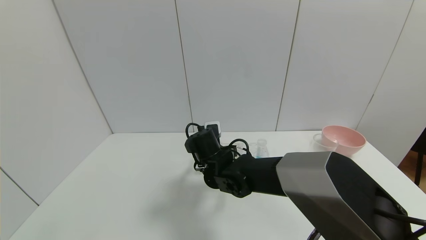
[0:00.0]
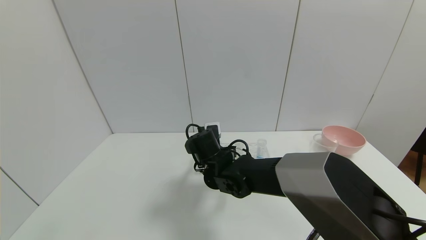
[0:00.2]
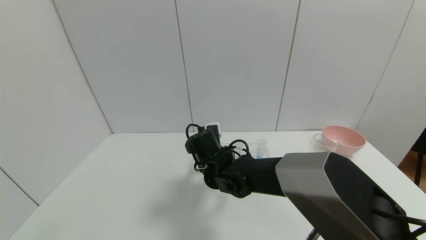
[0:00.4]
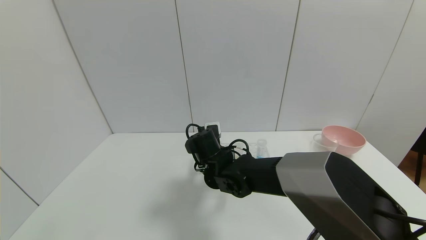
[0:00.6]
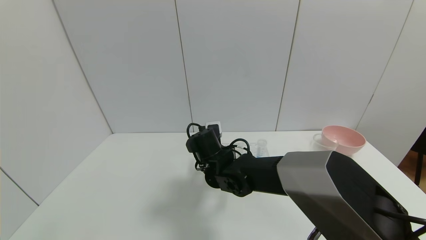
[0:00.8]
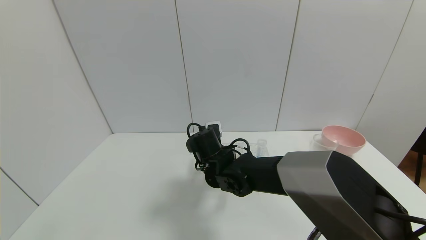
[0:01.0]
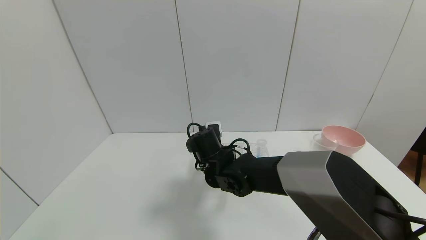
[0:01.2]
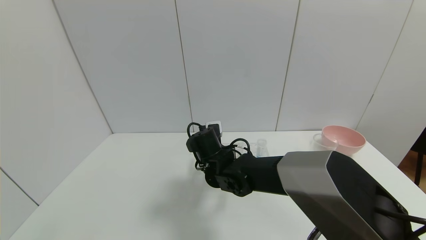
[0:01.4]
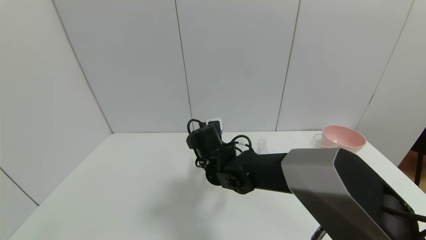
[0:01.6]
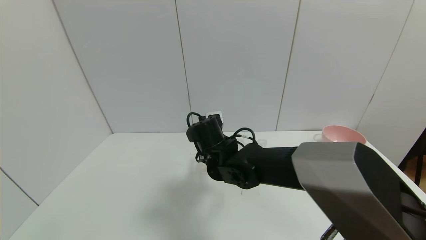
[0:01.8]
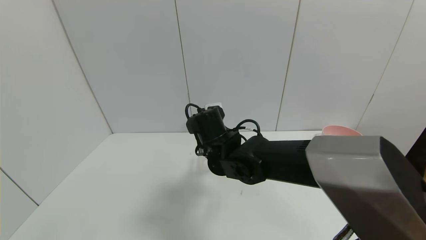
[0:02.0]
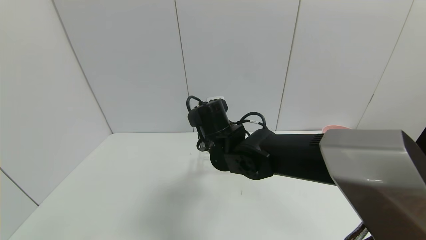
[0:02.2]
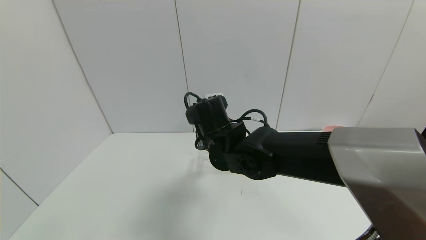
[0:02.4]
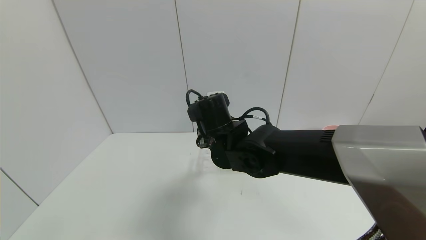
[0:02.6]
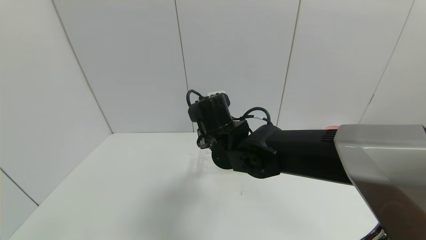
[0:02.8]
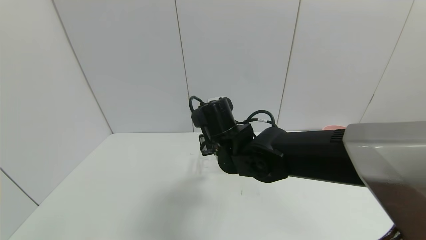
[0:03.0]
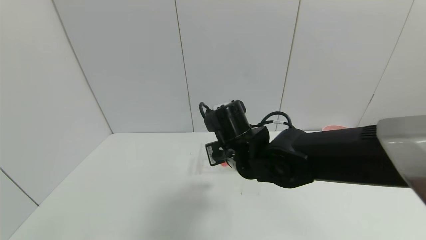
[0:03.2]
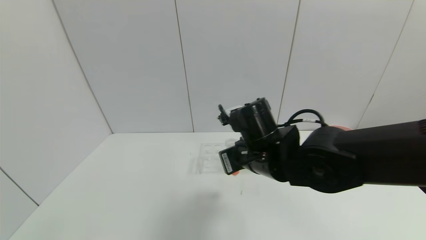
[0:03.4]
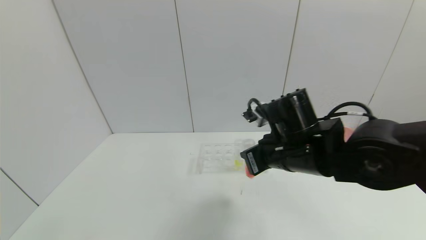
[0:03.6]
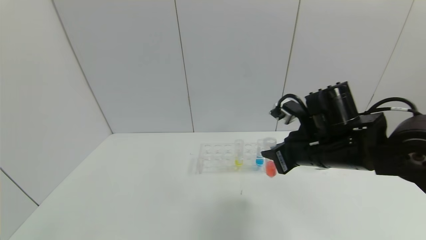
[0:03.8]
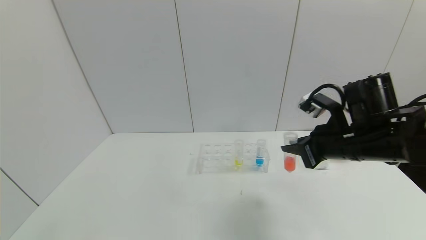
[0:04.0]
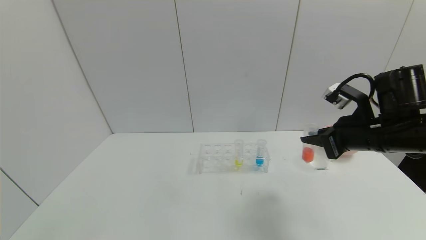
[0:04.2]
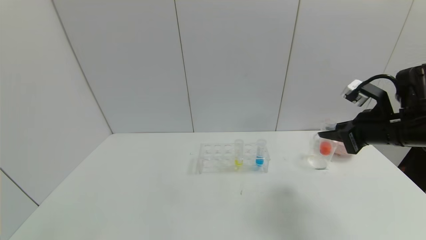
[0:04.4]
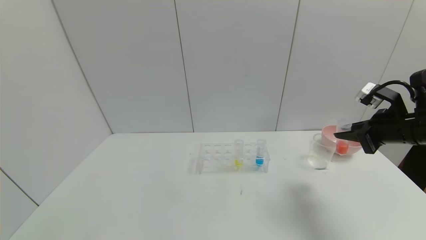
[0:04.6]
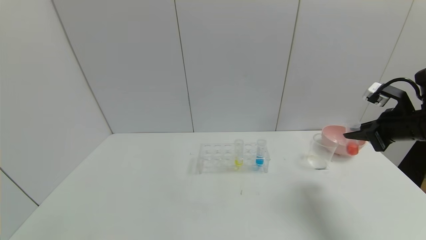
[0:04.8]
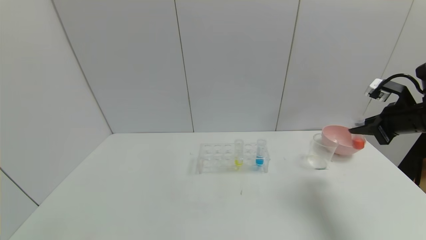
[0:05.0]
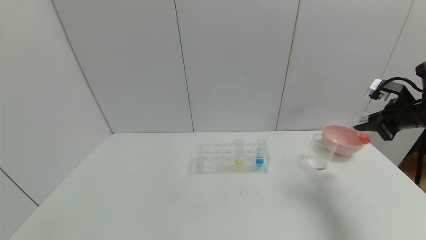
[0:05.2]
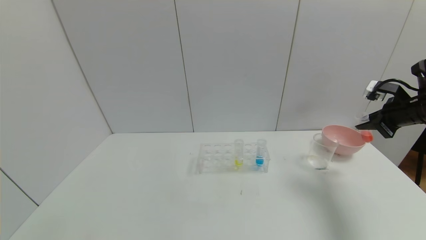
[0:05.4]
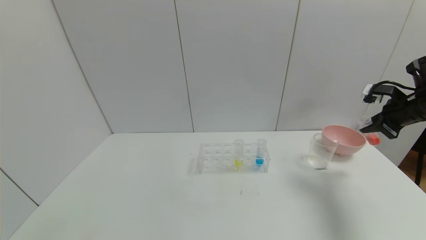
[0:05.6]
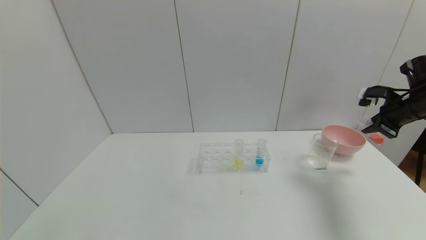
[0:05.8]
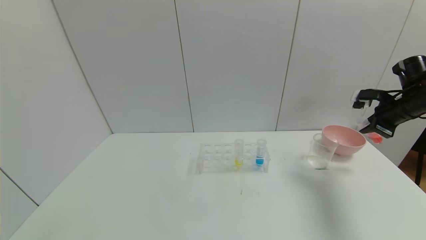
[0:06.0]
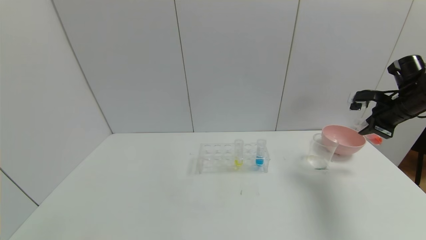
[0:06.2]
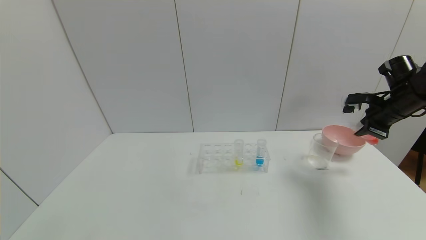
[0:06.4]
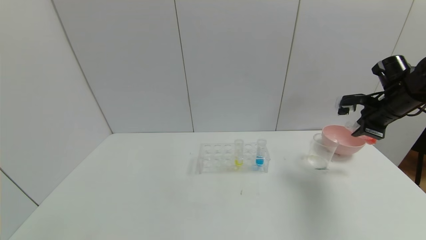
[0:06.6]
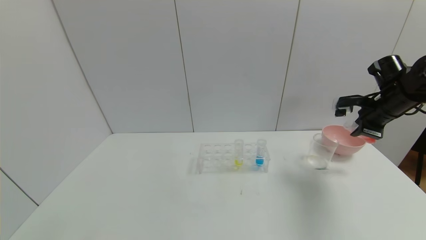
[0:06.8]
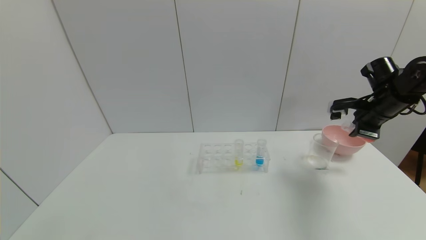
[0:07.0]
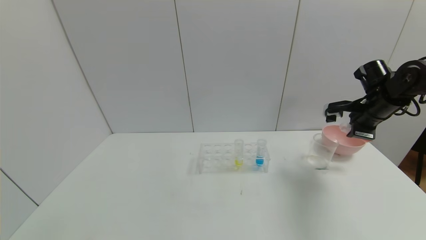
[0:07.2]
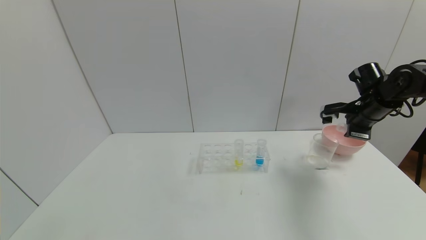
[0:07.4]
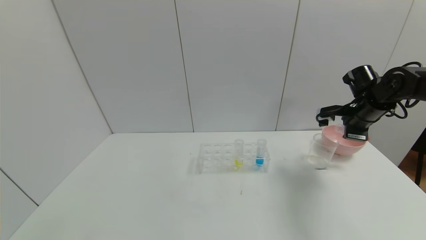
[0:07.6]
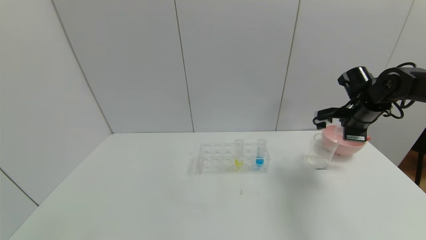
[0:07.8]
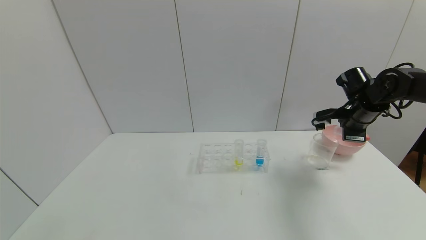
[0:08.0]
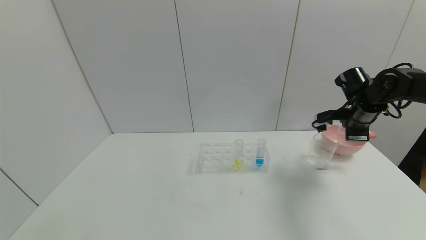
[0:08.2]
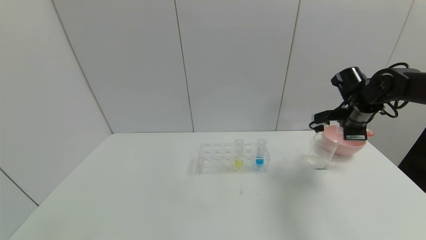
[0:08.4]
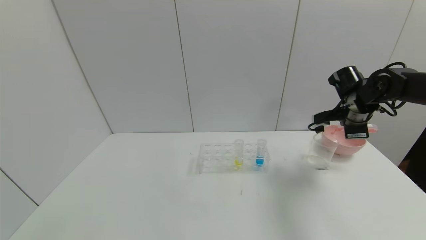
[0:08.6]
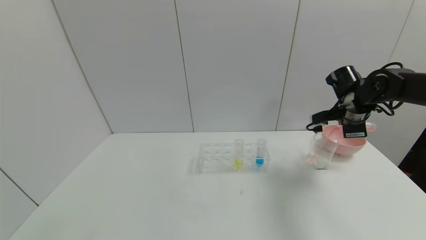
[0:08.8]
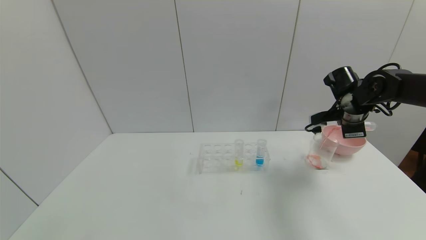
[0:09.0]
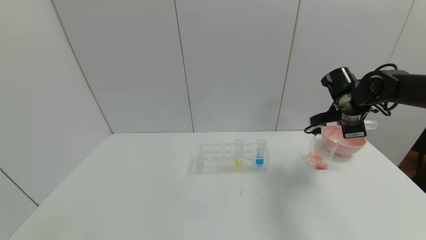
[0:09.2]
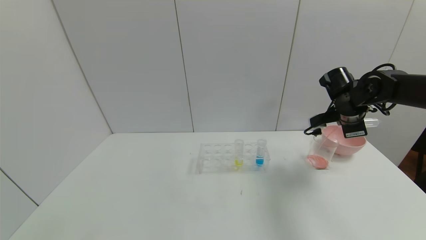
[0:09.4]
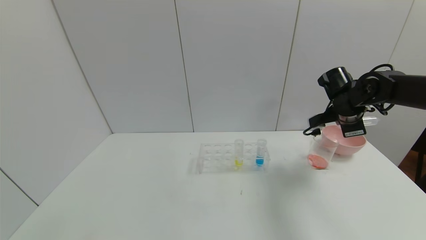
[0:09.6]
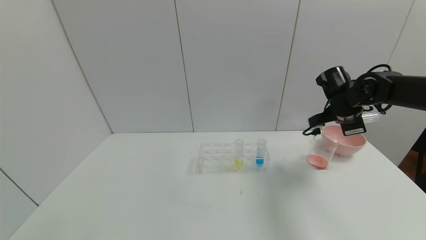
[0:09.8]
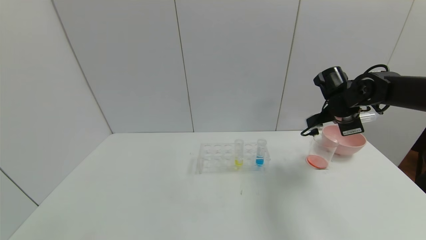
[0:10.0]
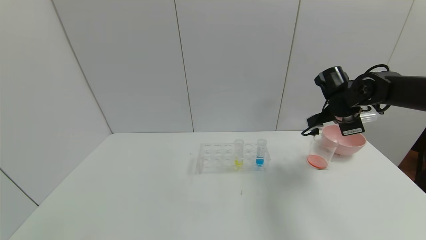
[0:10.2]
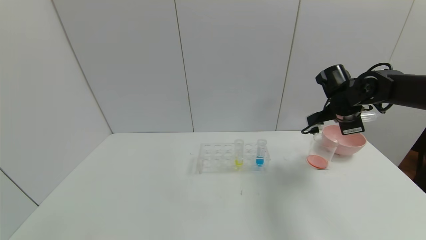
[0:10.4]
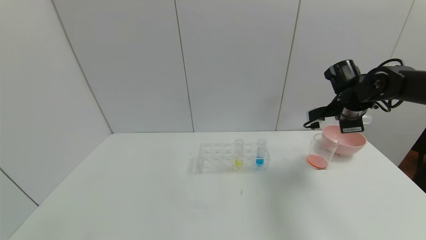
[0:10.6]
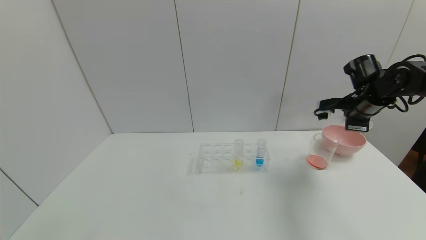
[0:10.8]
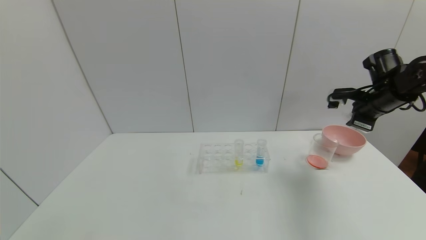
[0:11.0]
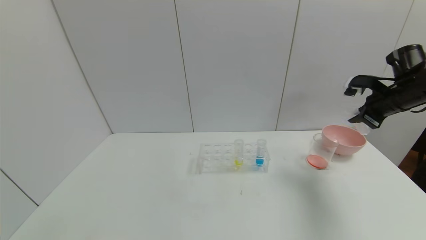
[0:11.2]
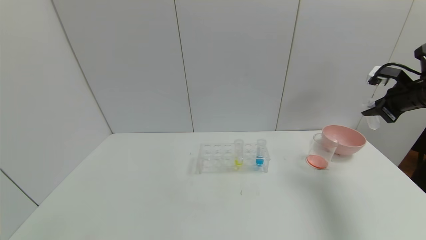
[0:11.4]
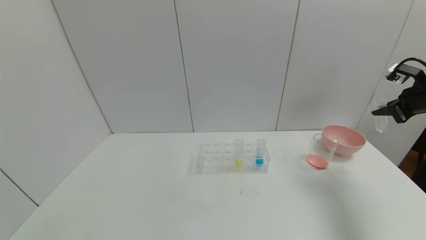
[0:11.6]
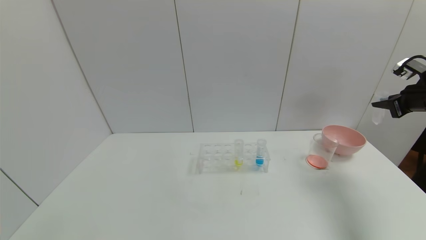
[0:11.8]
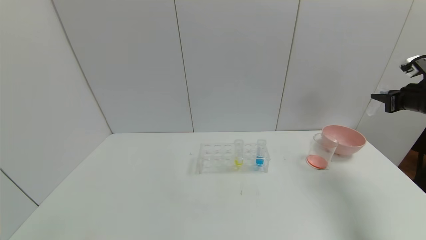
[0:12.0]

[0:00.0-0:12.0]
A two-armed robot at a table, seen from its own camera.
Task of the whole recording: pick up the test tube with yellow pigment and the test tube with red pigment by grippers and pour them into the beaker.
Step, 0:01.0 to 0:10.4: Pour the red reagent into the graduated cylinder with the right gripper.
0:00.0 to 0:01.6: The right gripper closes its fingers.
0:01.6 to 0:03.0: The right gripper is displaced upward by some 5 cm.
0:03.0 to 0:04.4: The right gripper heads to the right, covering approximately 30 cm.
0:04.4 to 0:06.0: The right gripper is displaced to the right and forward by about 15 cm.
0:06.0 to 0:07.6: The right gripper travels to the left by roughly 10 cm.
0:09.0 to 0:10.4: The grippers make only small movements.
0:10.4 to 0:12.0: The right gripper heads to the right, covering roughly 20 cm.

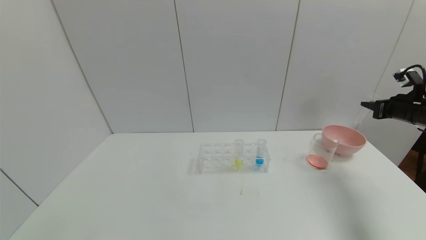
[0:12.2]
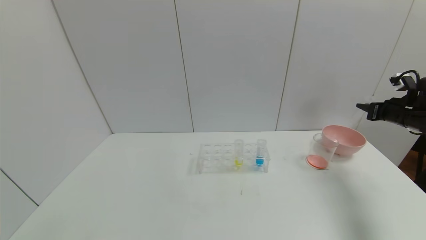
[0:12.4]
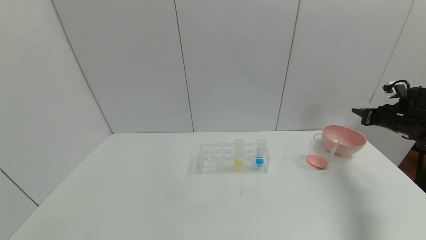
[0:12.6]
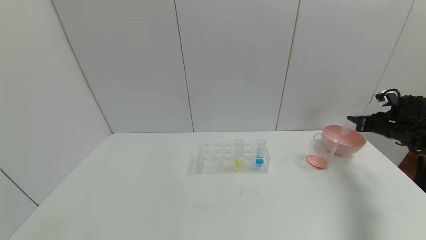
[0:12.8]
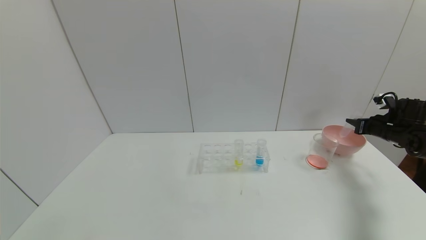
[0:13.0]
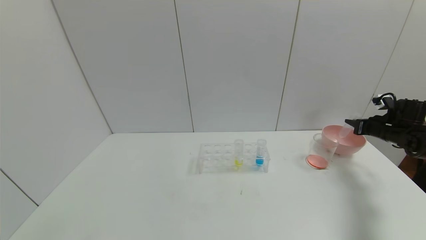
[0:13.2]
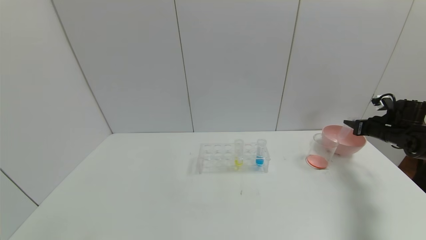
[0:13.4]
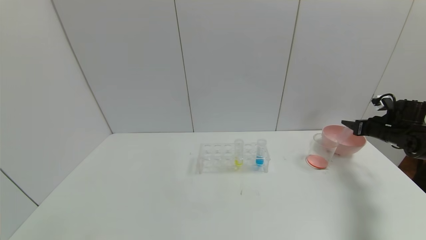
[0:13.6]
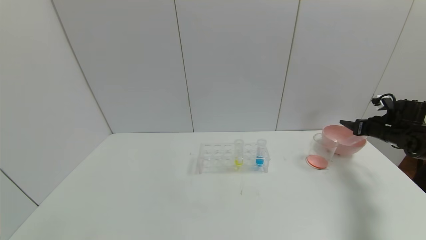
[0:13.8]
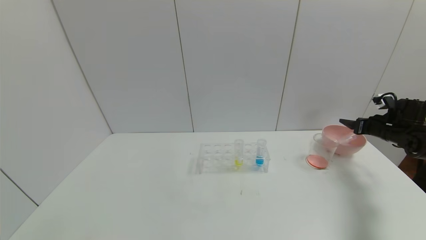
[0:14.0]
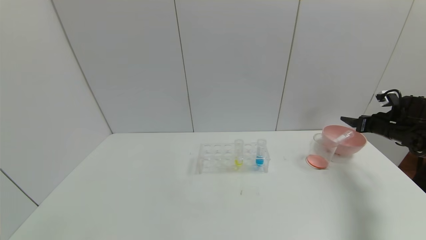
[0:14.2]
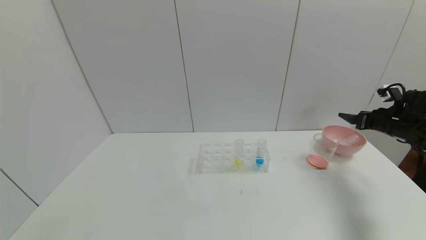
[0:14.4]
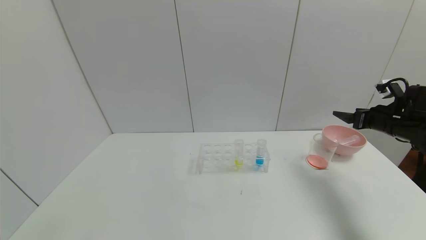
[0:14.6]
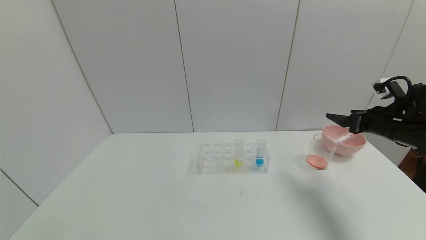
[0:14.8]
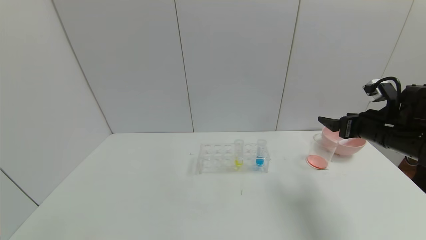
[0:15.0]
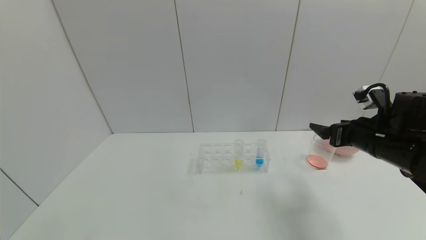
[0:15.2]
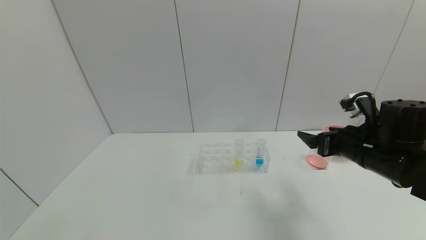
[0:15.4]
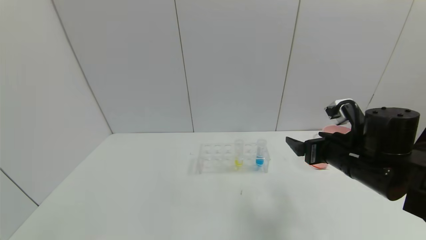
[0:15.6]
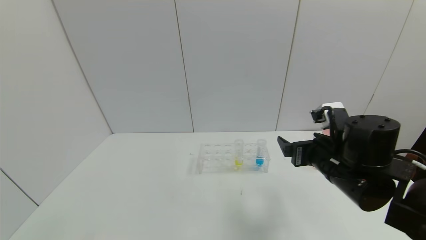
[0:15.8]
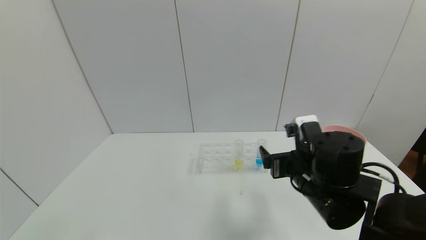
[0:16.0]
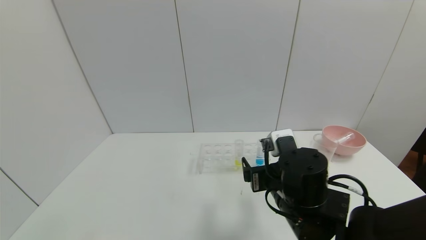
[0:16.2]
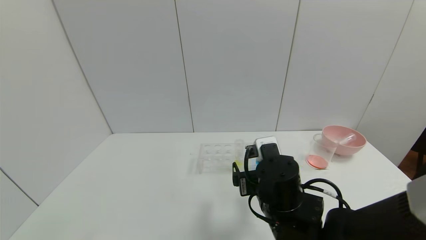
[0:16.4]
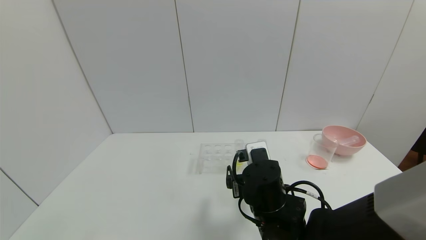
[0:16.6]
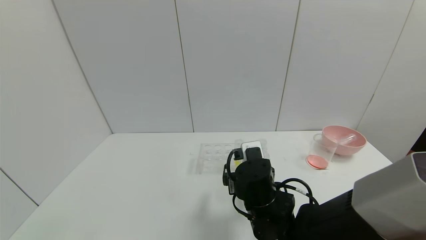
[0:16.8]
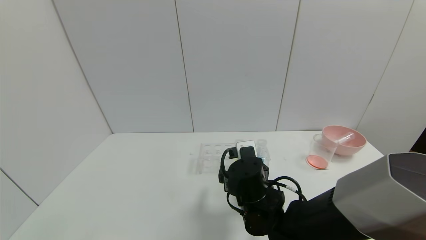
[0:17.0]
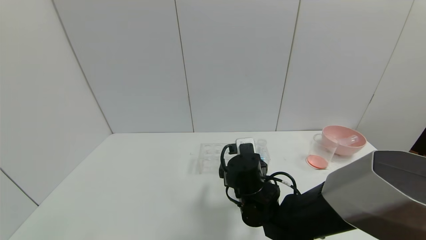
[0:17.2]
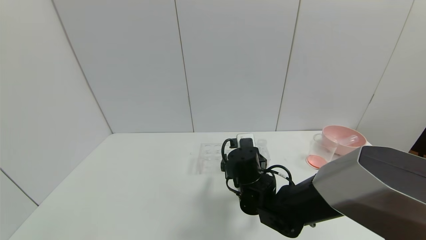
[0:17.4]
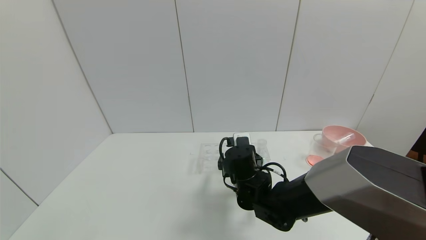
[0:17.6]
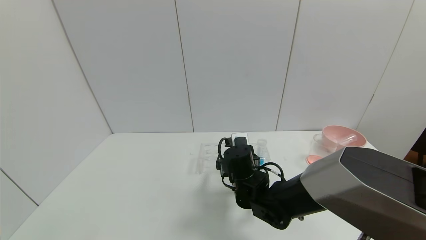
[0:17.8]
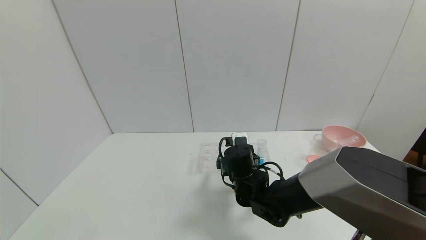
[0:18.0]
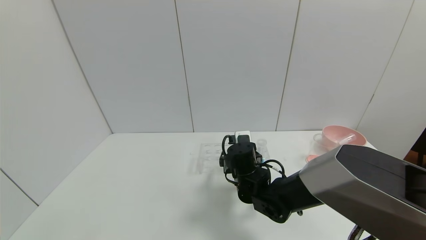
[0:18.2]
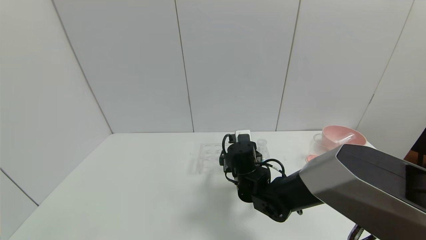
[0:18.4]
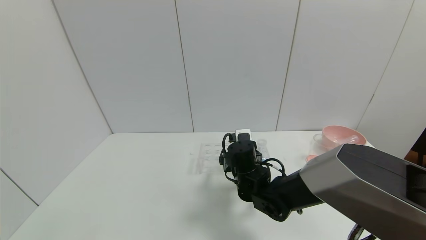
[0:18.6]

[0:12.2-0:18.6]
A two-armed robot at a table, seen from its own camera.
Task of the whole recording: pick up the test tube with yellow pigment and the test tube with red pigment by grippers and pour them into the beaker.
Step, 0:12.2 to 0:14.0: Place the test tube into the bowl with the right gripper.
0:12.2 to 0:13.8: The right gripper moves downward, roughly 10 cm, and opens.
0:13.8 to 0:15.4: The right gripper shifts some 25 cm to the left and backward.
0:15.4 to 0:17.0: The right gripper goes about 25 cm to the left and downward.
0:17.0 to 0:18.6: The right gripper goes roughly 5 cm forward.
